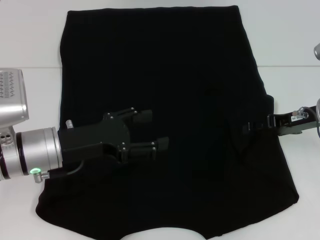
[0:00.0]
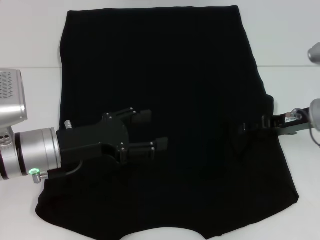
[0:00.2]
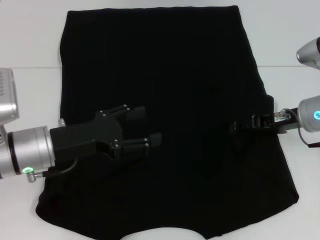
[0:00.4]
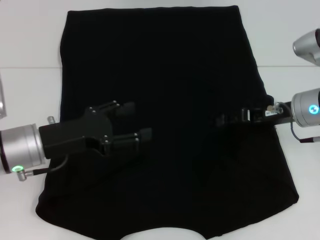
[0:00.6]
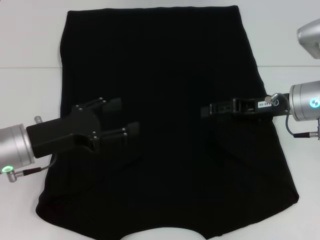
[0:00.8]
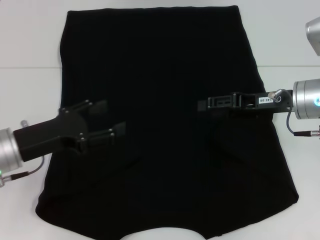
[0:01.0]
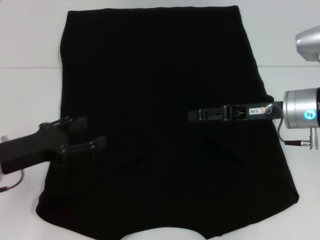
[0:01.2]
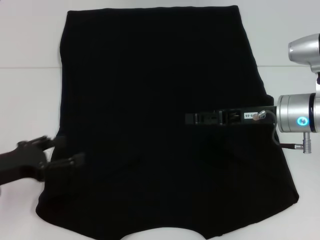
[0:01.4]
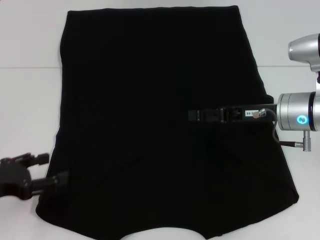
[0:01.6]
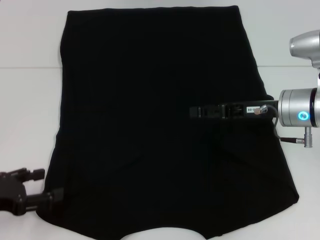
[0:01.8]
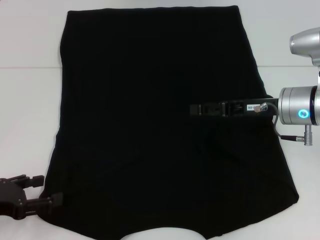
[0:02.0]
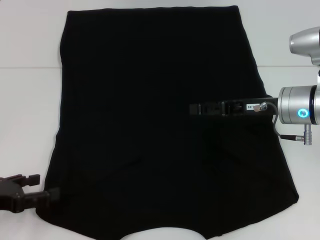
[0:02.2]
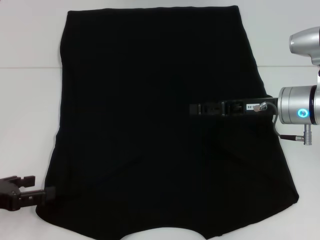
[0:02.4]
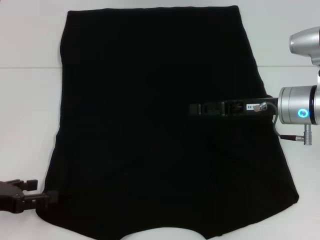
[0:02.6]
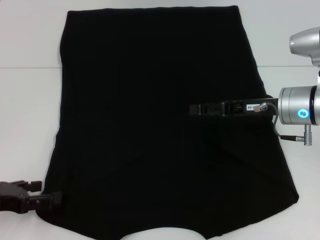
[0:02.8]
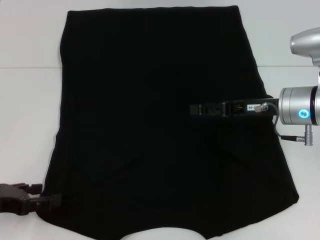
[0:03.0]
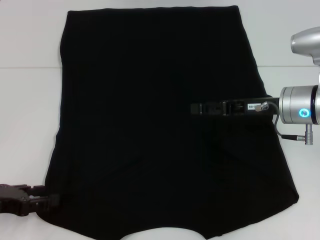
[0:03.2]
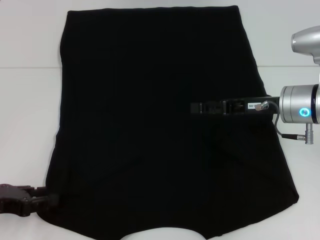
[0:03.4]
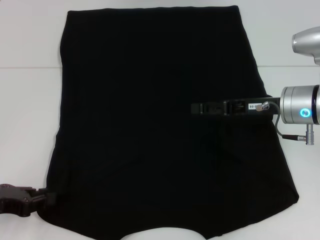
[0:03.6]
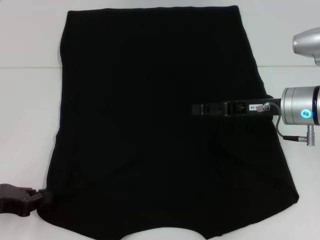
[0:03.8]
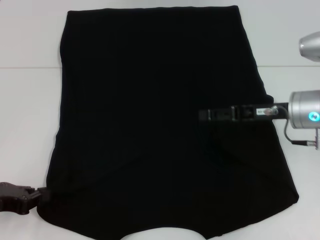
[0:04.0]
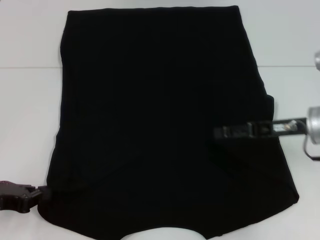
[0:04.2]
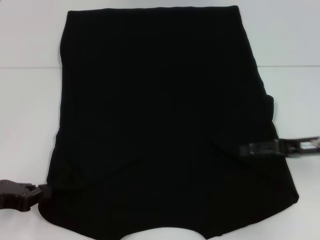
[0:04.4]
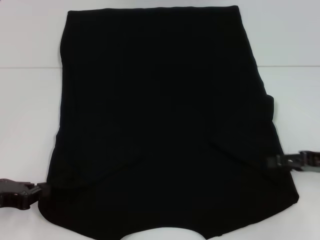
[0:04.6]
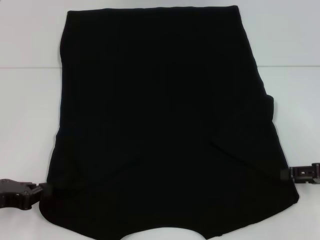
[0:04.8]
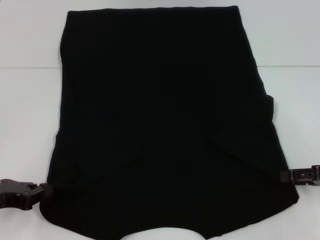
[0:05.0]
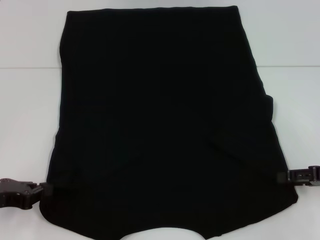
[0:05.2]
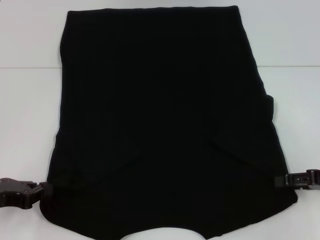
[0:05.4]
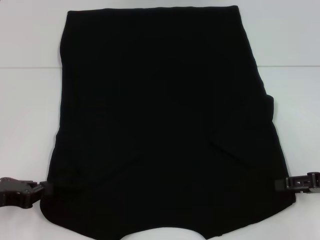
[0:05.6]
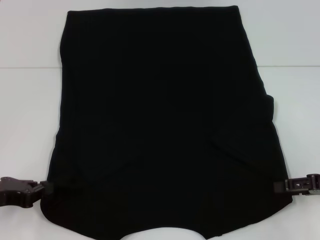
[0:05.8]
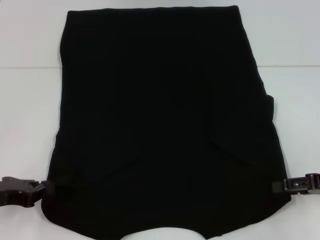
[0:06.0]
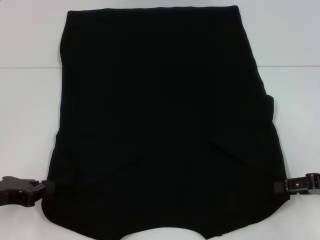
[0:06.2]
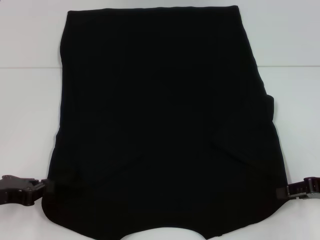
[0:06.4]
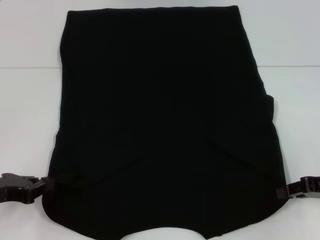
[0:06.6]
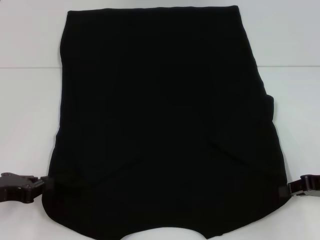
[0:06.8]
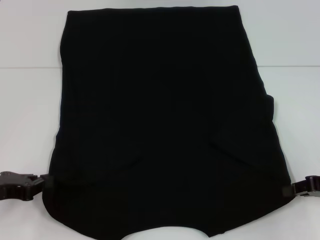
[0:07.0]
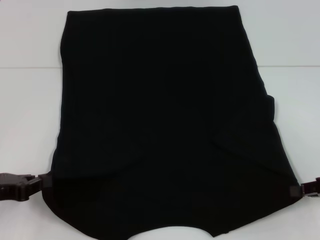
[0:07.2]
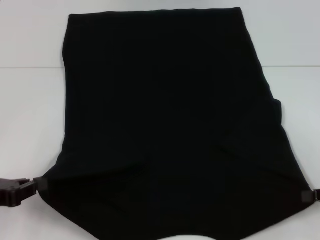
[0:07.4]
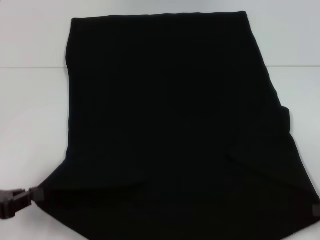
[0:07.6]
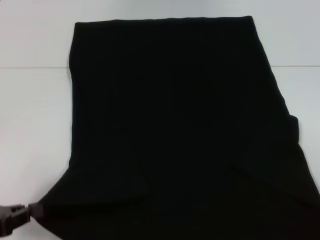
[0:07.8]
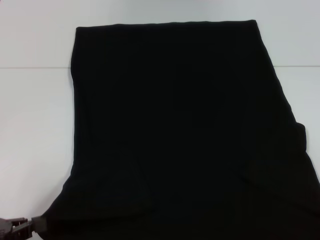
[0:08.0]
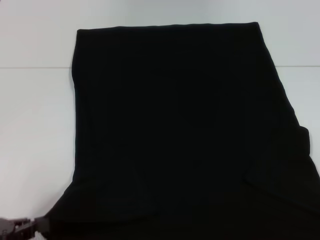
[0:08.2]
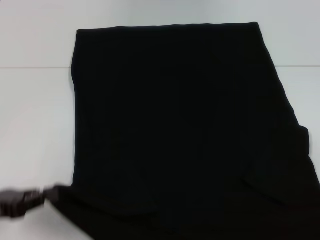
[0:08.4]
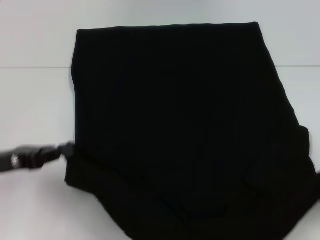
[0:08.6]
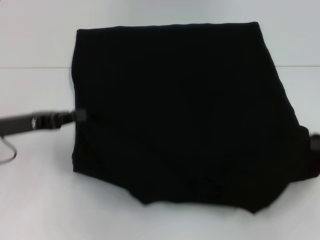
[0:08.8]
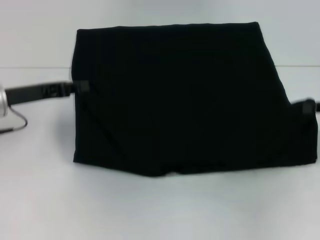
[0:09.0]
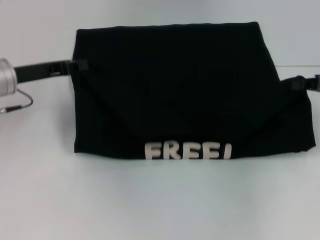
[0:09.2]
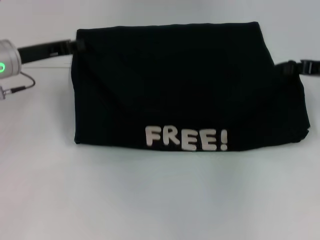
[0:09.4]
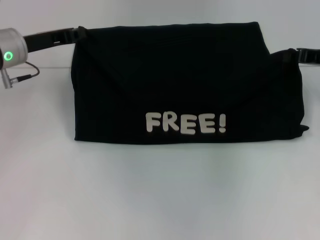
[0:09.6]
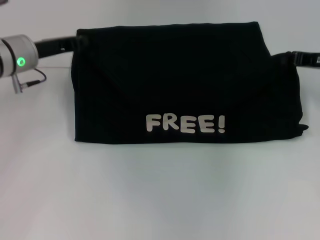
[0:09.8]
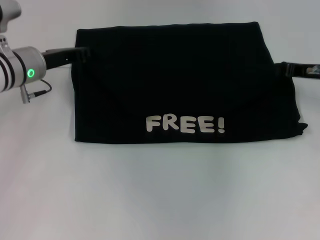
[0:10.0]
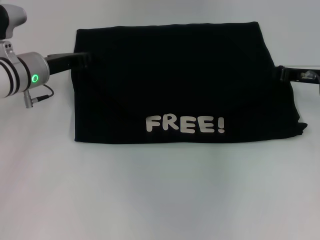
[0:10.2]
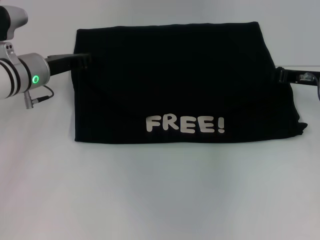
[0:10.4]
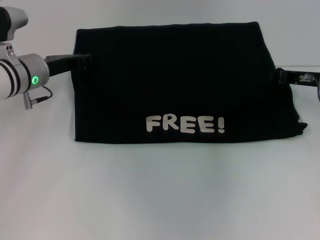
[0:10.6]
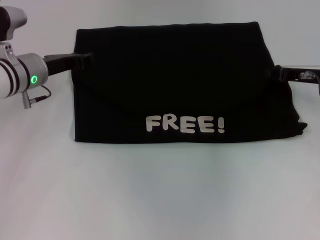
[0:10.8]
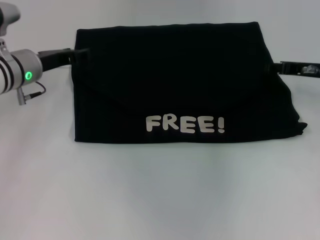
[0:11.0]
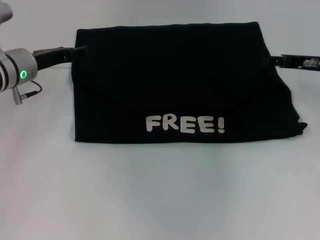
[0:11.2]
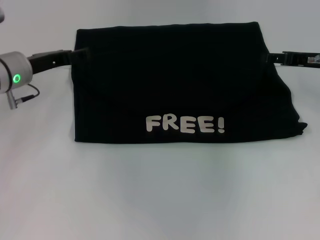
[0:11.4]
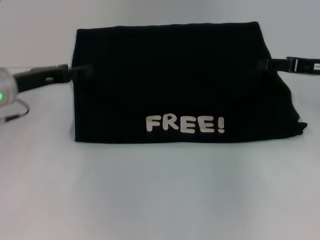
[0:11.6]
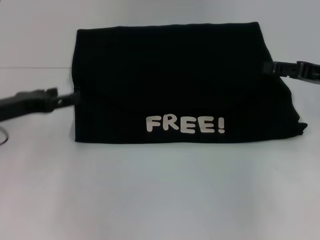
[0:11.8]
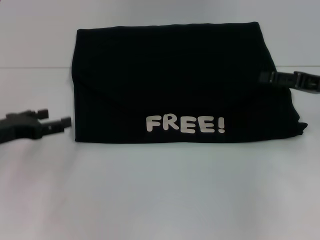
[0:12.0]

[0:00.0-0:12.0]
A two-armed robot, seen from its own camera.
Step, 0:01.0 to 0:04.4: Grab the bottom left corner with your left hand.
Step, 0:04.6 to 0:06.6: Grab the bottom right corner with your right hand.
Step, 0:06.8 to 0:11.4: Fold the clothes with your left hand.
Step, 0:06.8 to 0:11.4: Fold the clothes with your right hand.
0:00.0 to 0:01.6: The left gripper travels to the left and backward by roughly 15 cm, while the right gripper moves to the left, roughly 5 cm.
0:01.6 to 0:03.0: The grippers stay close to where they were, moving slightly.
0:03.0 to 0:04.4: The left gripper closes its fingers. Meanwhile the right gripper travels to the right by about 10 cm.
0:04.4 to 0:06.0: The right gripper ends up approximately 5 cm from where it was.
0:06.0 to 0:07.6: The right gripper travels backward by roughly 5 cm, and closes its fingers.
0:07.6 to 0:09.0: The right gripper moves forward and upward, some 10 cm; the left gripper shifts approximately 15 cm forward.
0:09.0 to 0:10.4: The right gripper is displaced forward and to the left by approximately 10 cm; the left gripper moves forward and to the right, approximately 10 cm.
0:10.4 to 0:12.0: The right gripper is displaced backward by about 5 cm, and opens, while the left gripper heads backward and to the left, covering approximately 15 cm, and opens its fingers.

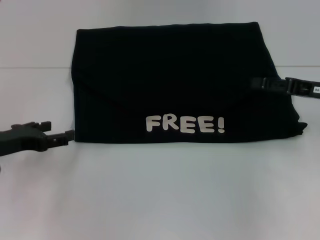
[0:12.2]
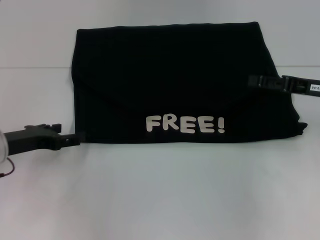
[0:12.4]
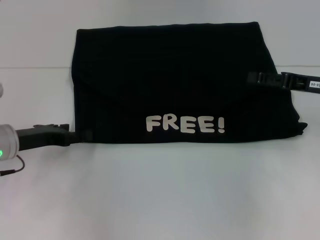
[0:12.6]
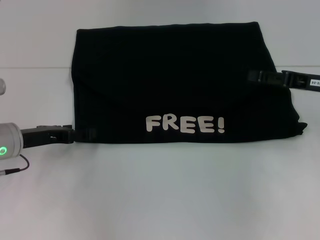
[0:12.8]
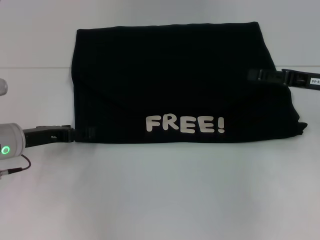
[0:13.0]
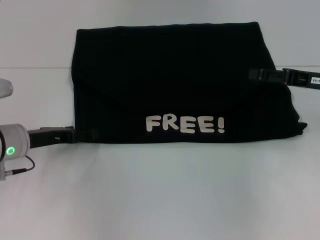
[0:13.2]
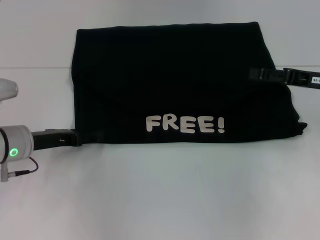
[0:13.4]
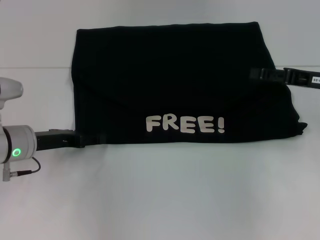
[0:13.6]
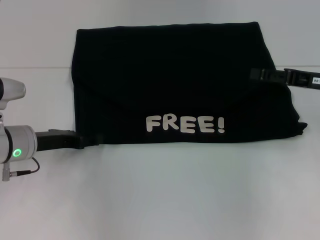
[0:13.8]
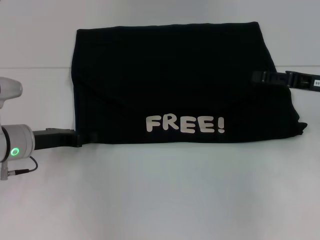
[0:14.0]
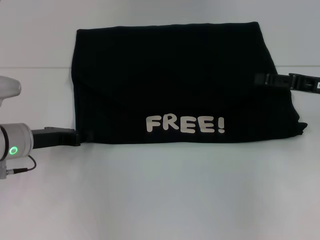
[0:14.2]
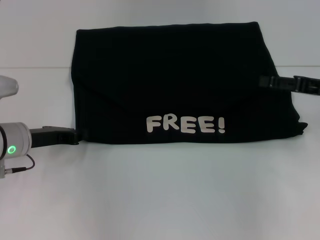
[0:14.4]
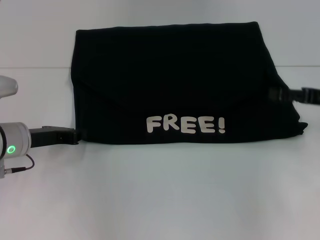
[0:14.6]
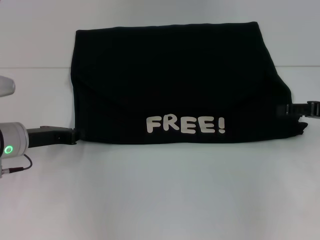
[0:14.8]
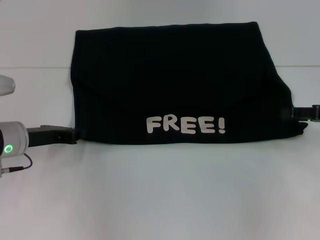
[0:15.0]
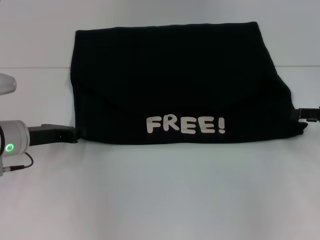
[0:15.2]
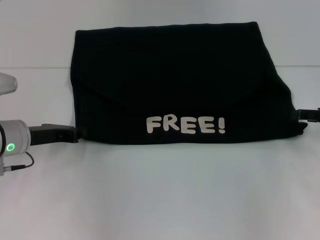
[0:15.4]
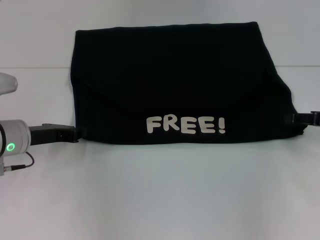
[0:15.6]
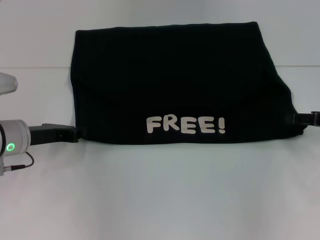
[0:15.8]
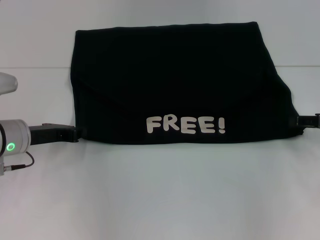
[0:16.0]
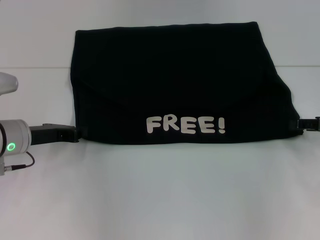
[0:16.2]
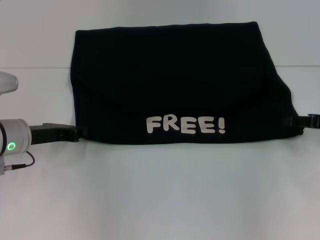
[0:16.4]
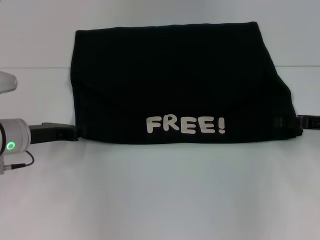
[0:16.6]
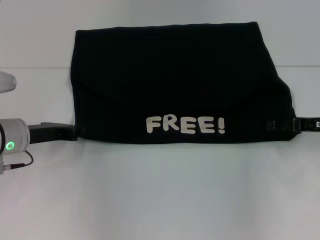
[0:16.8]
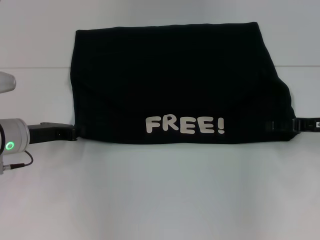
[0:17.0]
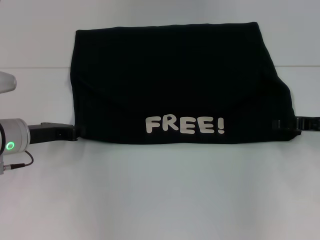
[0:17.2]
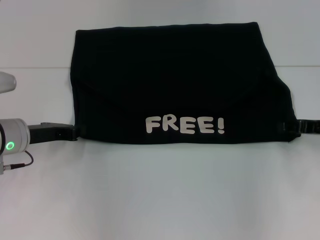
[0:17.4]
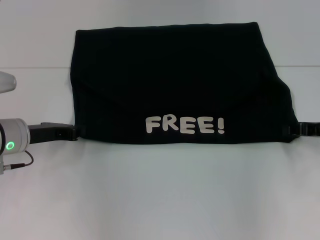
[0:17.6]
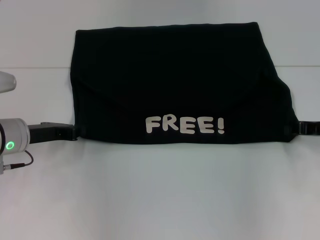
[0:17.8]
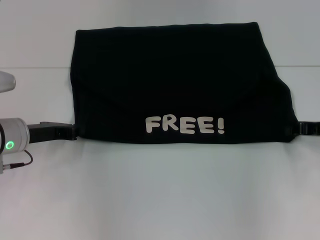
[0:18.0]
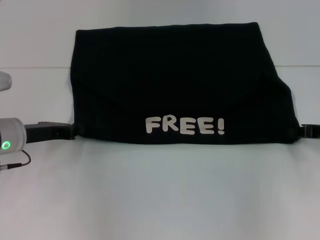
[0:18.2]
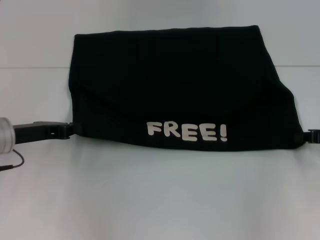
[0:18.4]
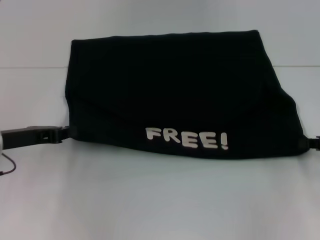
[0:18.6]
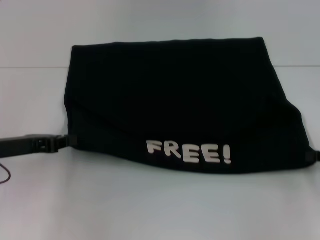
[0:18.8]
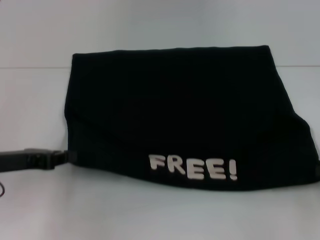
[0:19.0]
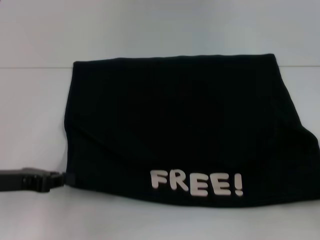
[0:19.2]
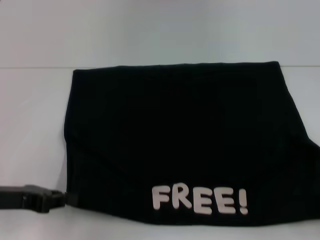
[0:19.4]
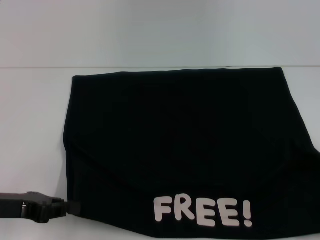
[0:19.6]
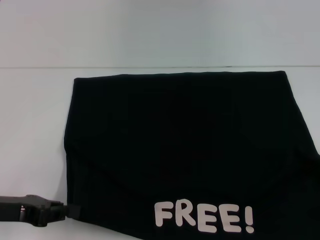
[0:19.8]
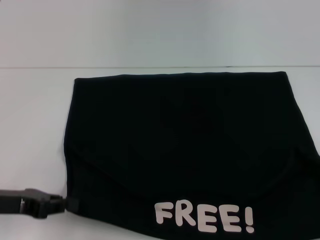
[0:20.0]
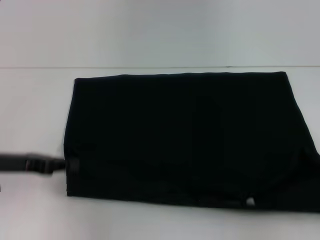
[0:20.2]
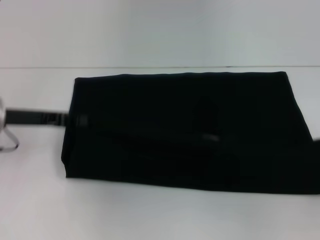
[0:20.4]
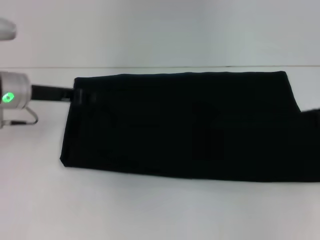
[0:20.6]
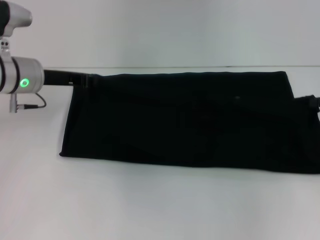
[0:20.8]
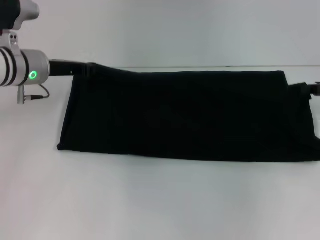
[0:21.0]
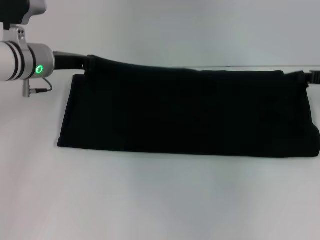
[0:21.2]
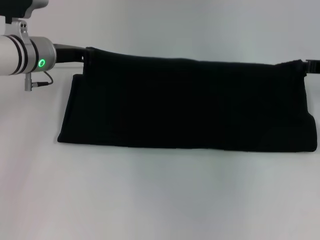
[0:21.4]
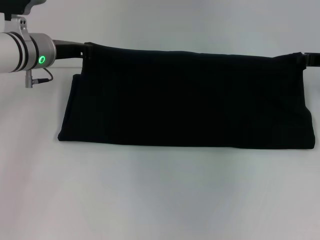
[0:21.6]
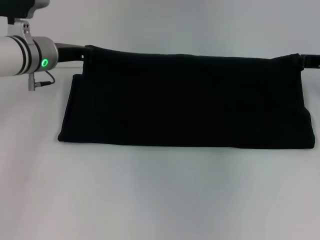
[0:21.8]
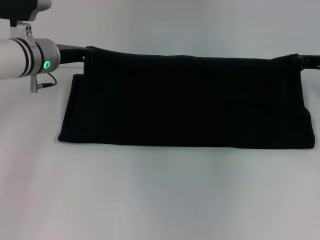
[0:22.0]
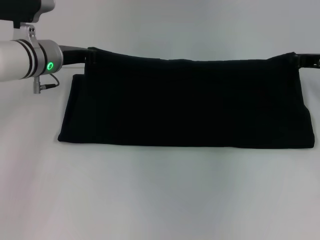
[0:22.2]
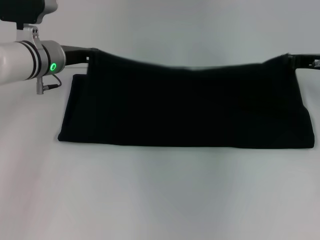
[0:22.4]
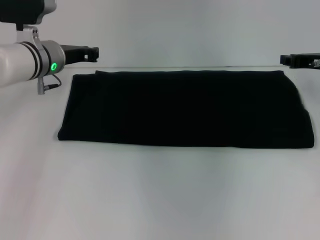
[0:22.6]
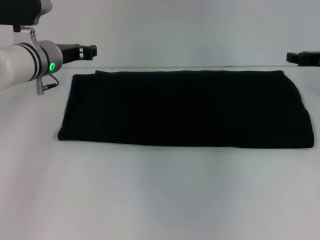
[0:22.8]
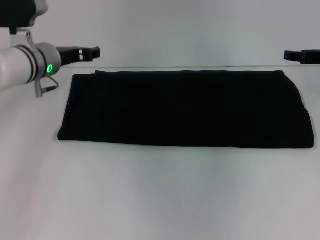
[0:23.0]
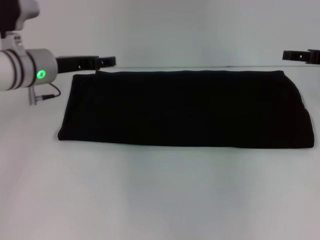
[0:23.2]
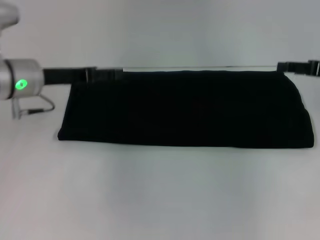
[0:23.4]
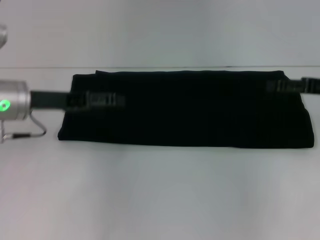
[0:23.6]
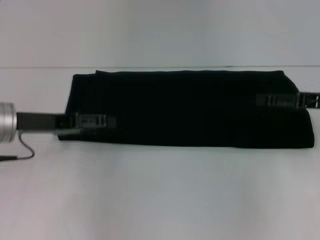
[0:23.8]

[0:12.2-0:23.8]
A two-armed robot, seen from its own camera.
Step, 0:12.2 to 0:19.8: Pull the clothes with your left hand.
Step, 0:12.2 to 0:19.8: Pull the clothes with your right hand.
Step, 0:20.0 to 0:23.0: Fold the clothes with your right hand.
0:12.2 to 0:13.6: The left gripper goes approximately 5 cm to the right.
0:13.6 to 0:15.0: The right gripper shifts by some 5 cm; the left gripper closes its fingers.
0:15.0 to 0:16.6: The grippers stay close to where they were, moving slightly.
0:16.6 to 0:18.0: The right gripper closes up.
0:18.0 to 0:19.4: The right gripper shifts approximately 15 cm backward and to the right, while the left gripper is displaced backward by about 10 cm.
0:19.4 to 0:21.0: The two grippers go approximately 15 cm forward.
0:21.0 to 0:22.4: The right gripper changes place by some 5 cm.
0:22.4 to 0:23.8: The left gripper goes about 15 cm backward and to the left, and opens up, while the right gripper is displaced backward by about 10 cm, and opens.
